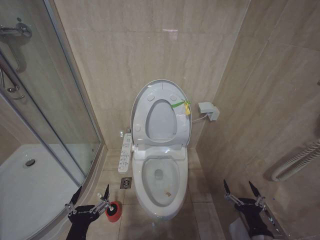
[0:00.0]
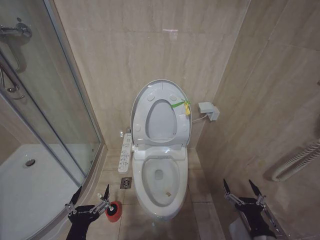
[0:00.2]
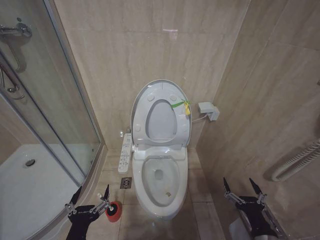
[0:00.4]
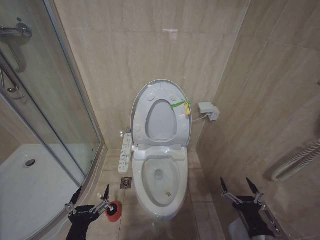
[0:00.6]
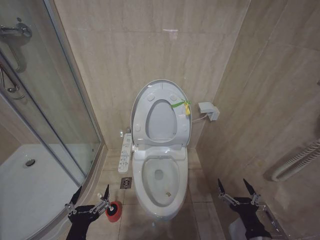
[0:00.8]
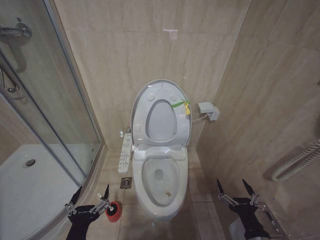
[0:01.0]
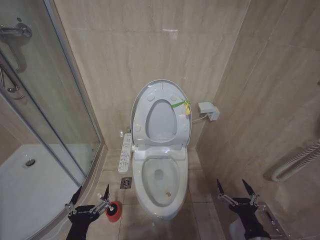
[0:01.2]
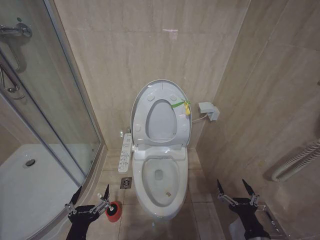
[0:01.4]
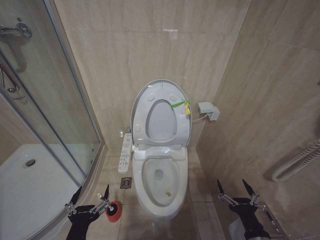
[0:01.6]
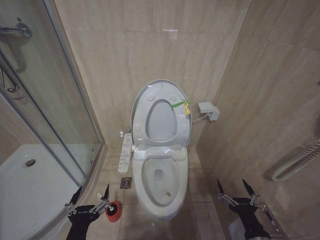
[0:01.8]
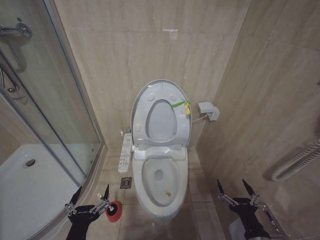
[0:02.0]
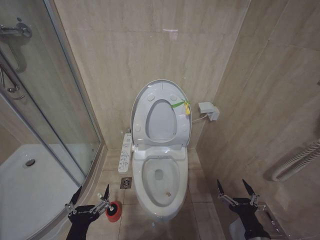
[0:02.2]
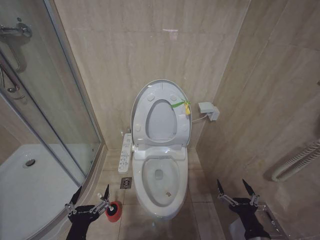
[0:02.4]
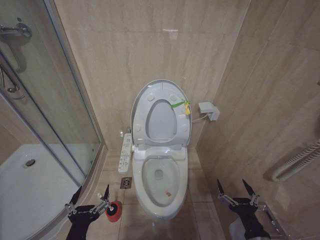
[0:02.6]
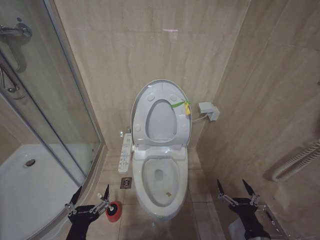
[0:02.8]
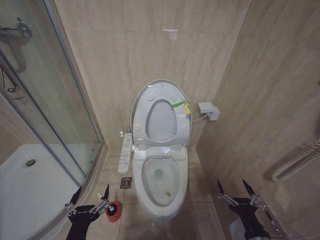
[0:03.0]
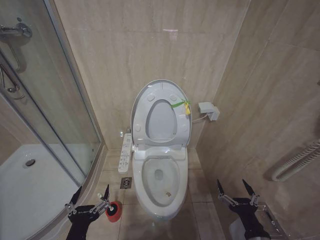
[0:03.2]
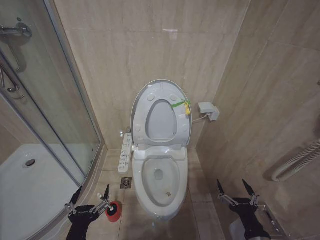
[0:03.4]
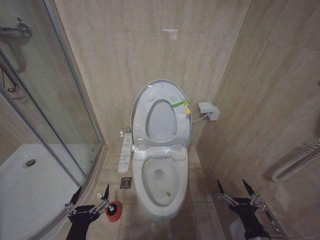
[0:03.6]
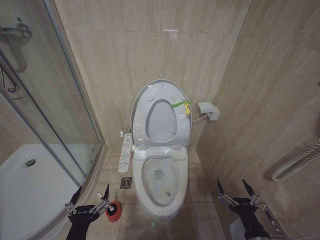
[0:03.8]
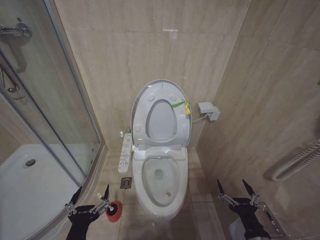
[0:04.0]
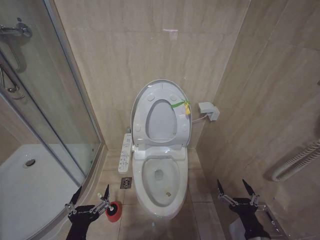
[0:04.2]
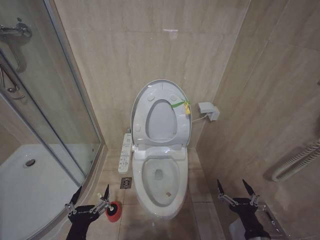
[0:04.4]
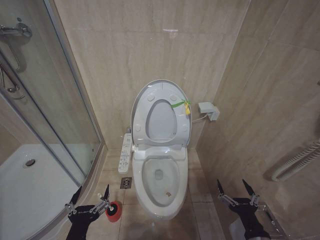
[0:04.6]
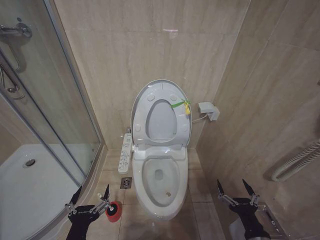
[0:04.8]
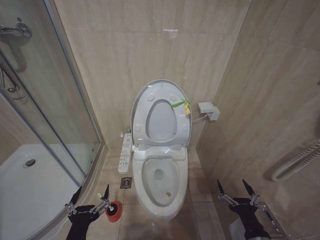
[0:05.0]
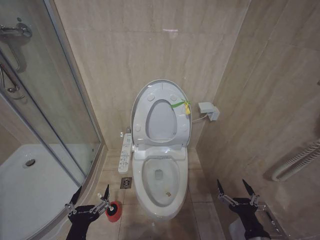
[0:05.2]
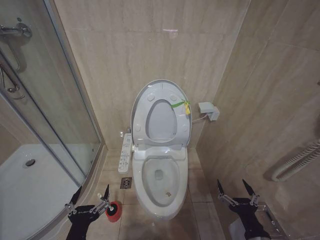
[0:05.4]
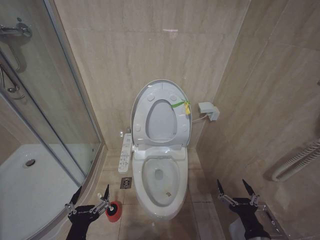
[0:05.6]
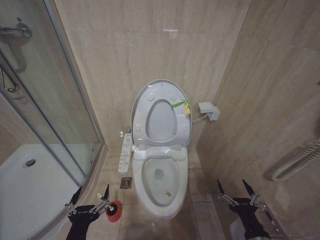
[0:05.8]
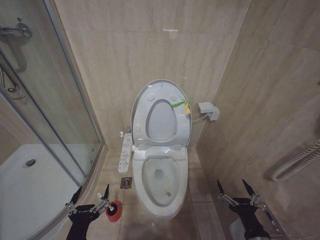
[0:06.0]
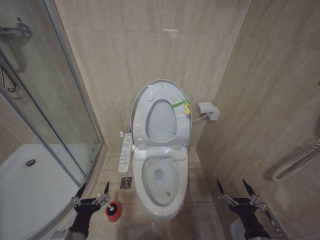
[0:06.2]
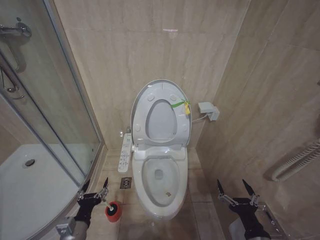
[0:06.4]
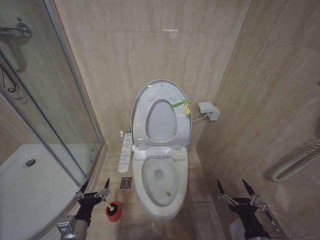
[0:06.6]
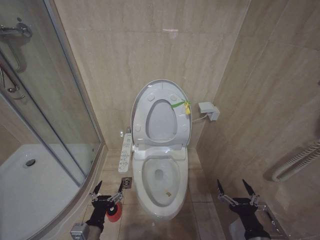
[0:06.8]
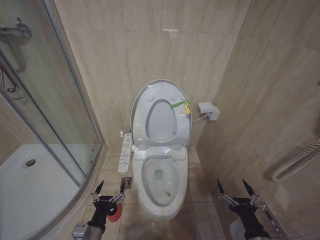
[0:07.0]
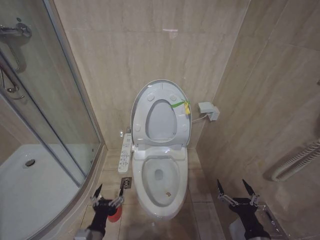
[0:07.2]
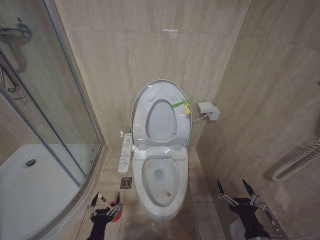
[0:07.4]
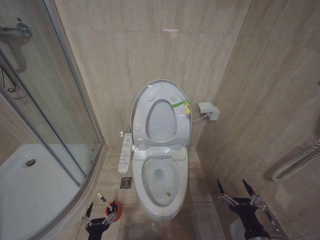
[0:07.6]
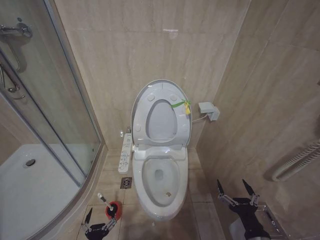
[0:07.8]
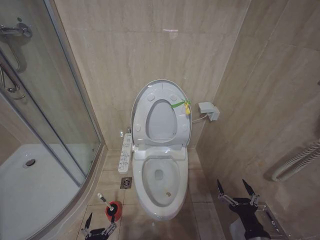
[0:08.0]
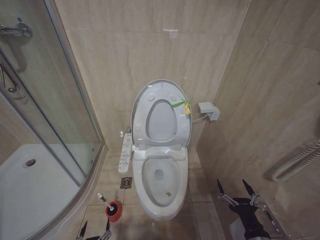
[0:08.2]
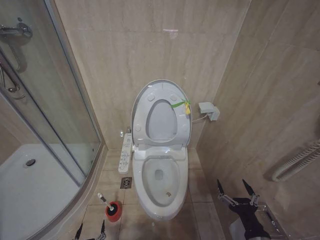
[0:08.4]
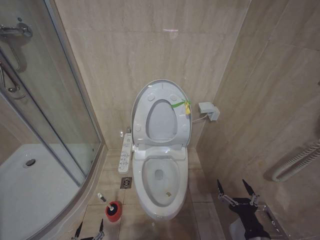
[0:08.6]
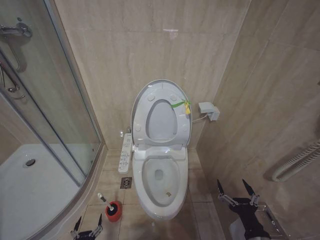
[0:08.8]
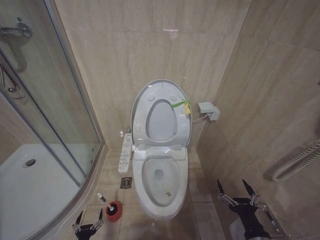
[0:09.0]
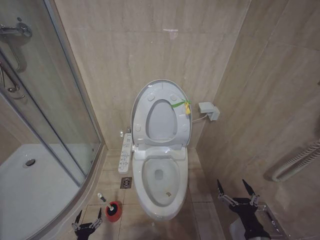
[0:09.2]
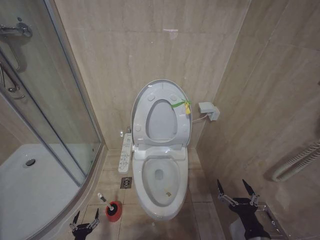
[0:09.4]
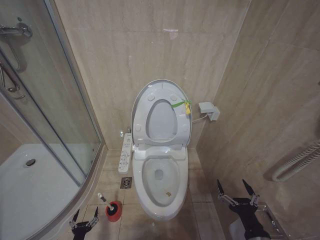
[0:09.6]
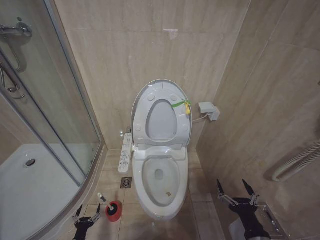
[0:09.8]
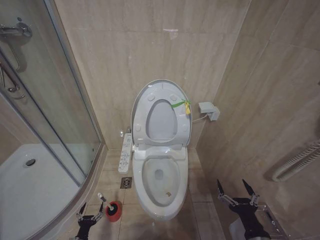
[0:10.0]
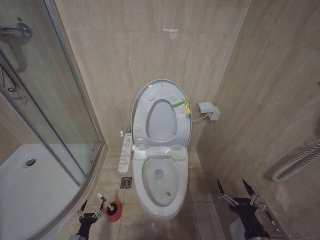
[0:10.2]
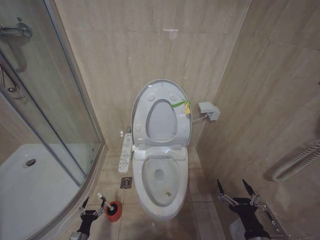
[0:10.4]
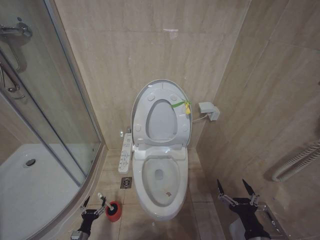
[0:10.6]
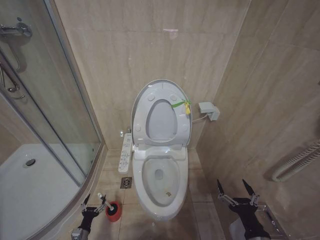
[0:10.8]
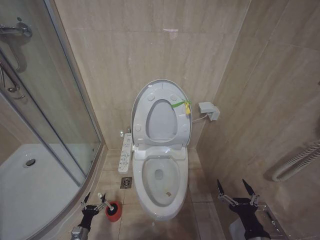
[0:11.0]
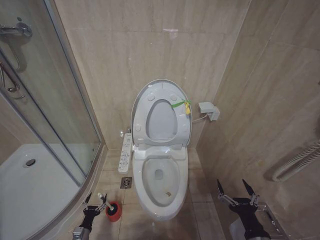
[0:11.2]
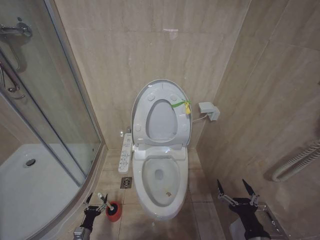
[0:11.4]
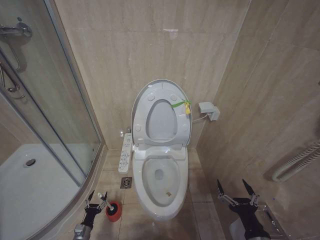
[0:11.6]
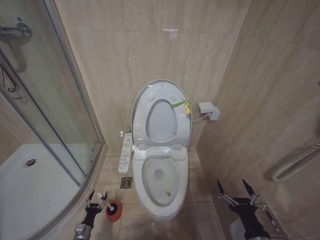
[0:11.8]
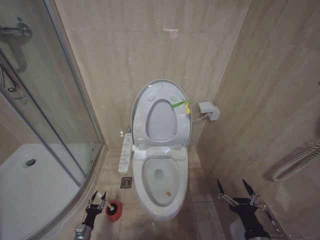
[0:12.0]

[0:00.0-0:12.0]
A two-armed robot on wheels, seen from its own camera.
Task of the whole recording: Open the toilet lid, clean the toilet bowl with a toilet brush, close the toilet lid, and flush.
0:01.6 to 0:06.0: The two grippers keep their place.
0:06.0 to 0:07.6: The left gripper shifts about 15 cm downward.
0:07.6 to 0:09.0: The left gripper goes about 15 cm downward and to the left.
0:09.0 to 0:10.4: The left gripper shifts some 10 cm forward.

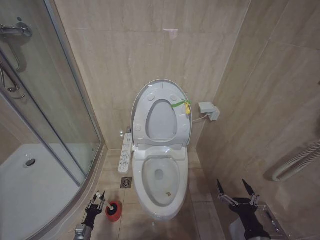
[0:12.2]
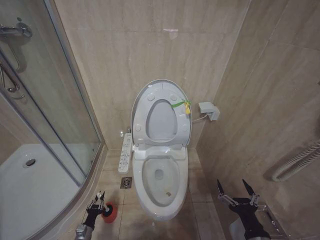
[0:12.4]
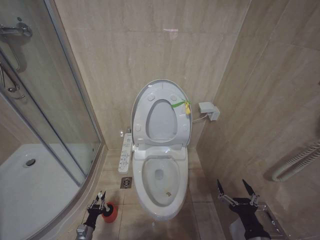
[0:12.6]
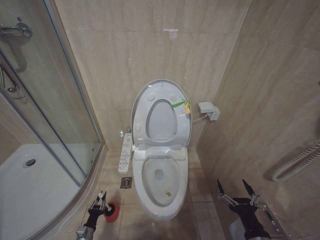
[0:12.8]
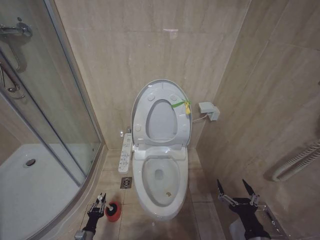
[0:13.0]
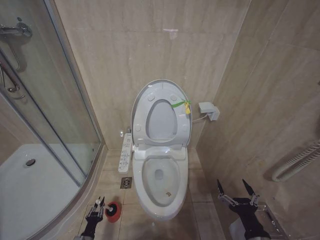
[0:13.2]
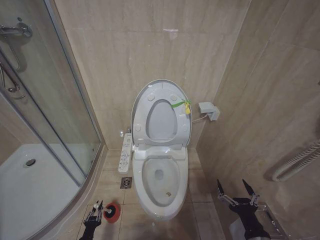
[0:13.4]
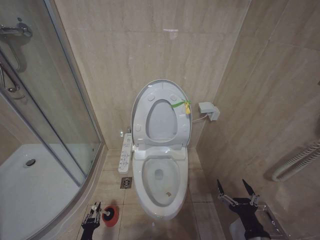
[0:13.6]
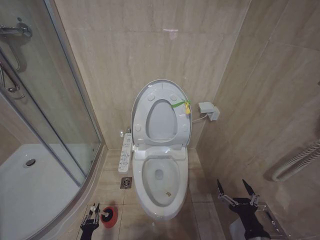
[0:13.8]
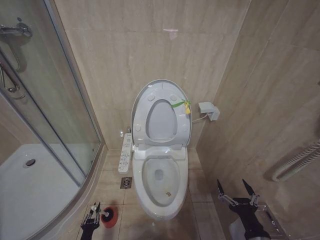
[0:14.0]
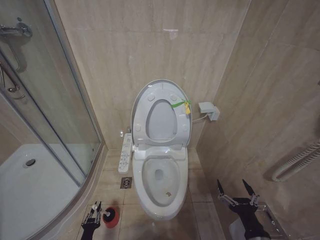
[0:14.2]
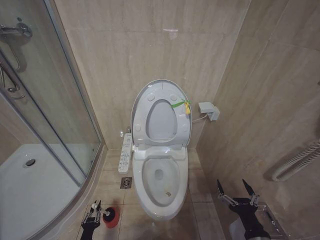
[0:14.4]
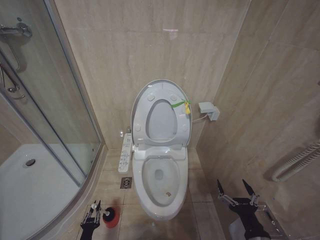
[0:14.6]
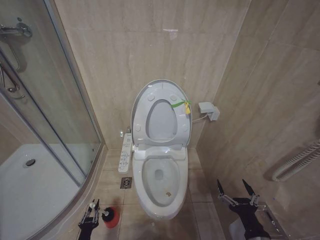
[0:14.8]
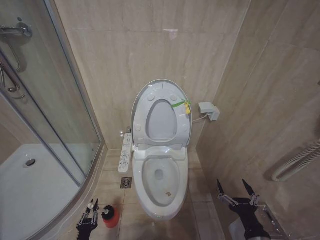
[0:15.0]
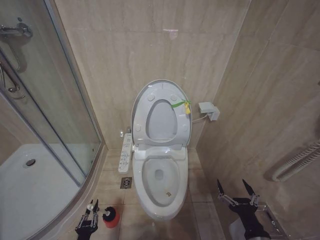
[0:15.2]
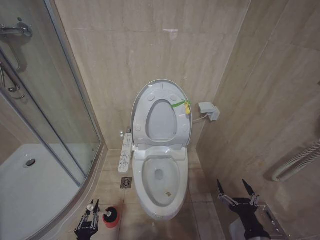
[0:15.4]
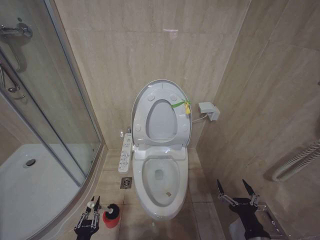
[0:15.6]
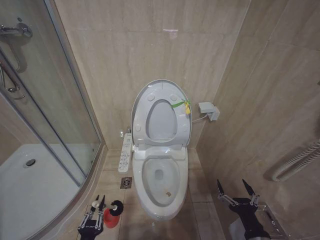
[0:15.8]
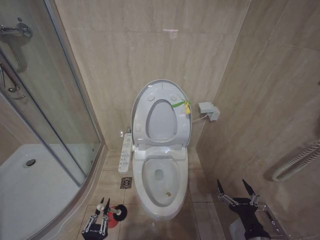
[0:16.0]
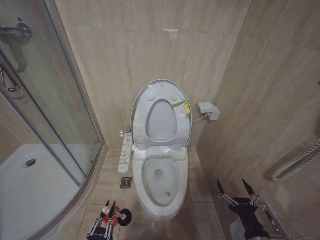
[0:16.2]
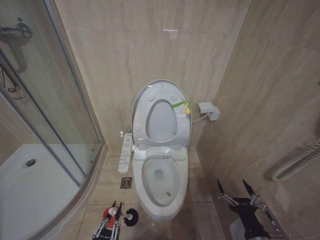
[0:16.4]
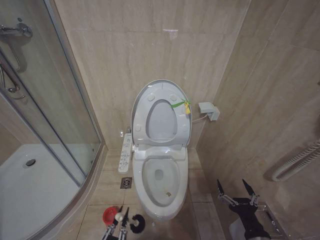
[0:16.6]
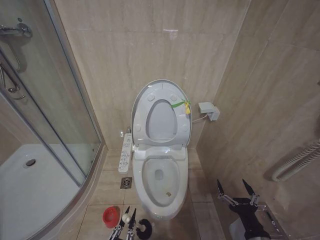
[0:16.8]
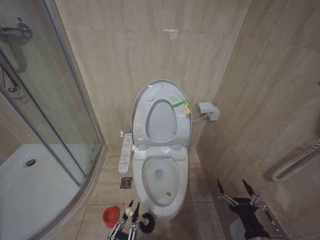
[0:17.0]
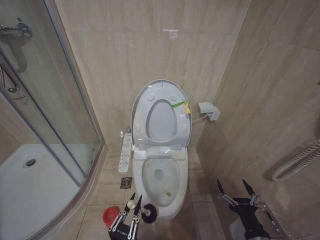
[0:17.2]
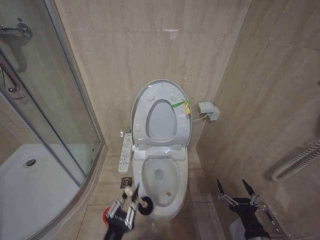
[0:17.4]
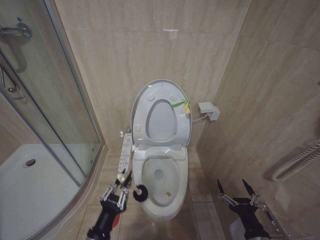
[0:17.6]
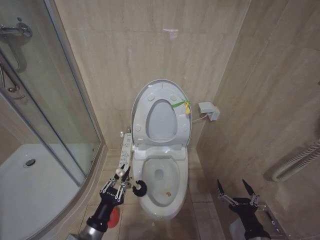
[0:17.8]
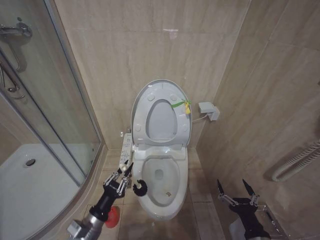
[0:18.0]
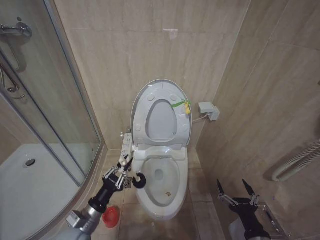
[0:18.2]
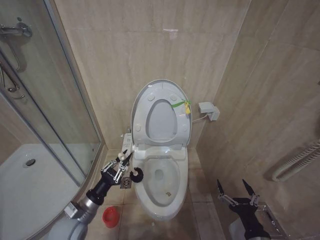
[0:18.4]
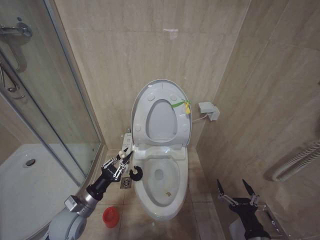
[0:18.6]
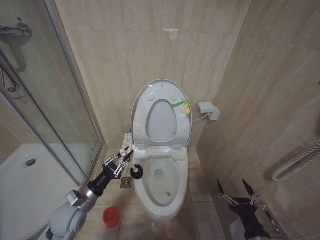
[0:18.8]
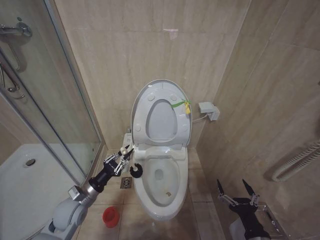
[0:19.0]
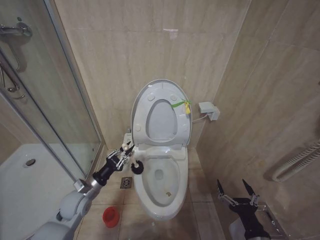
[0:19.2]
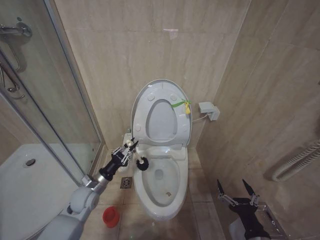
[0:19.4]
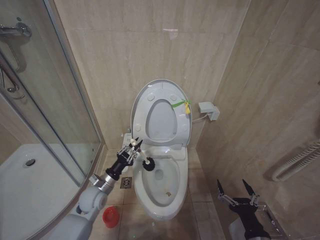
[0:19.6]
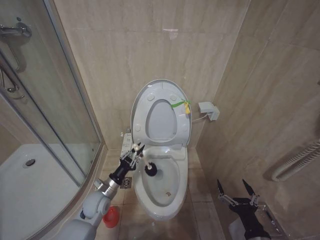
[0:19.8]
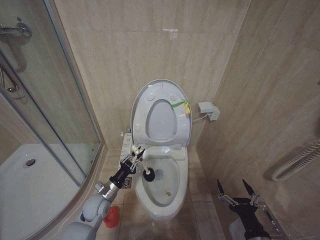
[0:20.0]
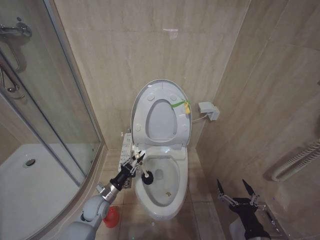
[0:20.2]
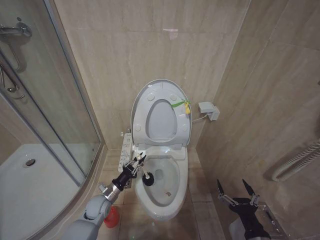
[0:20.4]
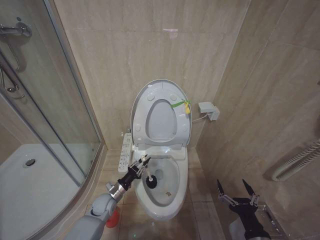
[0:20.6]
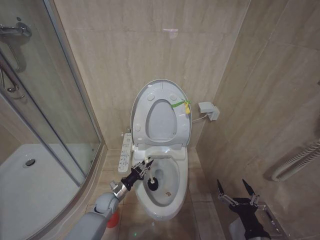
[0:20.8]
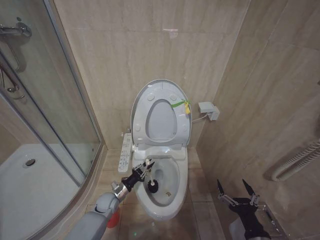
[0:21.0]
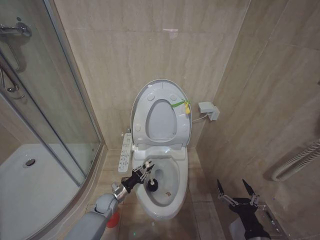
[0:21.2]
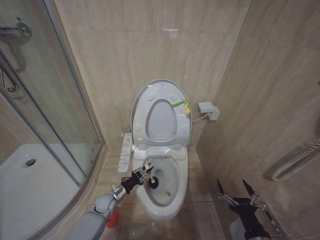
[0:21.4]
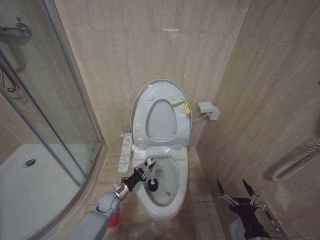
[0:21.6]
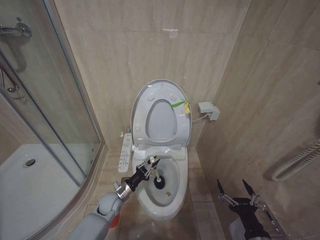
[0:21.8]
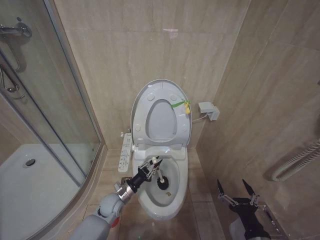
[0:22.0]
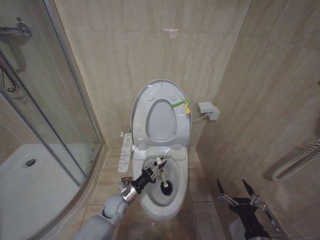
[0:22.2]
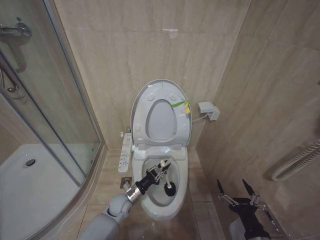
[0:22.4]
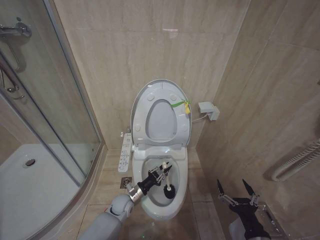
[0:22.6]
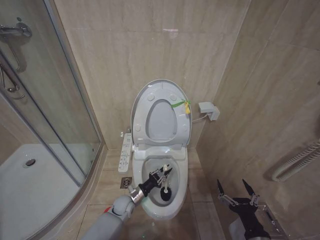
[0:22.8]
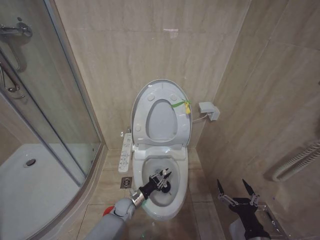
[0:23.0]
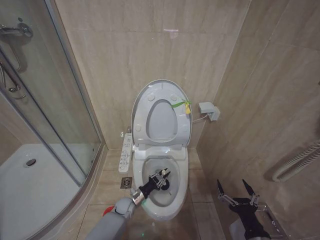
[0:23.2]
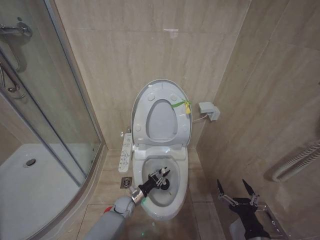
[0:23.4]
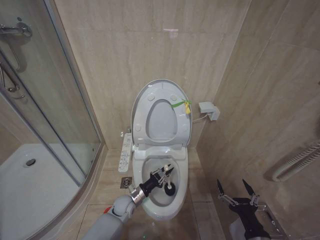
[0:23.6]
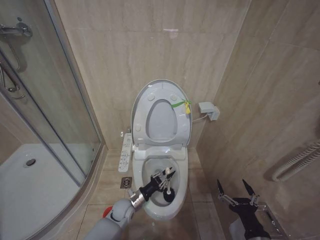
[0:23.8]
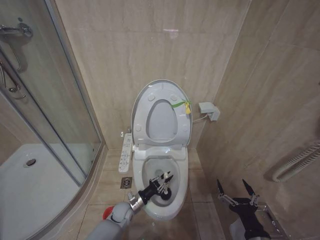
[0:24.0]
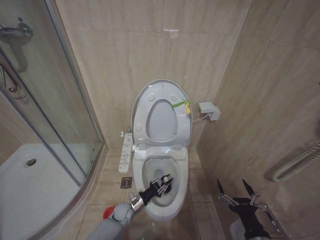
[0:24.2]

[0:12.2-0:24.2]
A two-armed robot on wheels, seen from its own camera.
Task of the whole recording: Open the toilet lid, clean the toilet bowl with a toilet brush, close the toilet lid, and flush.
0:12.2 to 0:13.8: The left gripper travels backward by about 5 cm.
0:13.8 to 0:15.2: The left gripper travels upward by about 10 cm.
0:15.2 to 0:16.6: The left gripper moves upward, to the right and backward, approximately 20 cm.
0:16.6 to 0:18.2: The left gripper heads forward, covering about 15 cm.
0:18.2 to 0:19.8: The left gripper is displaced forward by approximately 15 cm.
0:19.8 to 0:21.2: The left gripper shifts approximately 10 cm downward.
0:21.2 to 0:22.6: The left gripper travels to the right by roughly 10 cm.
0:22.6 to 0:24.2: The left gripper moves up and down over some 5 cm, changing direction 2 times.
